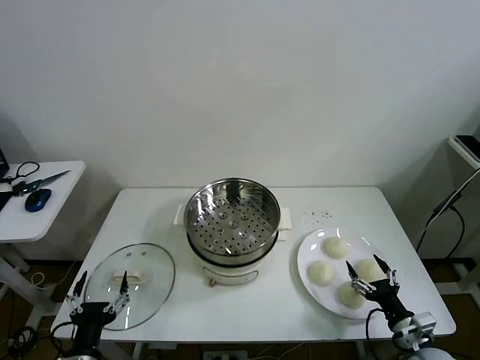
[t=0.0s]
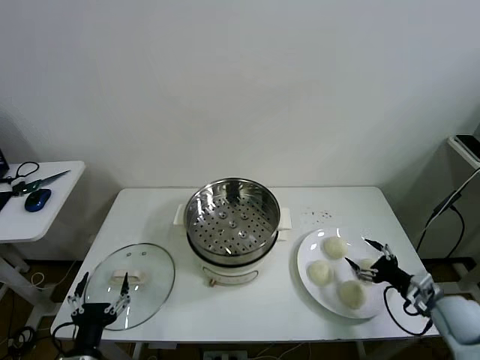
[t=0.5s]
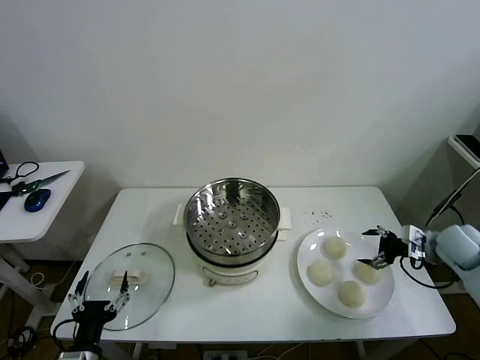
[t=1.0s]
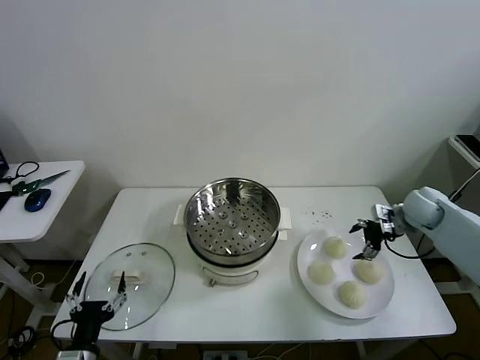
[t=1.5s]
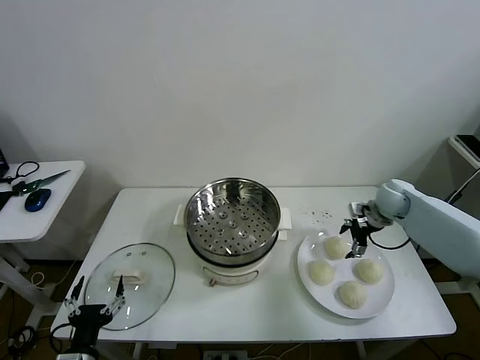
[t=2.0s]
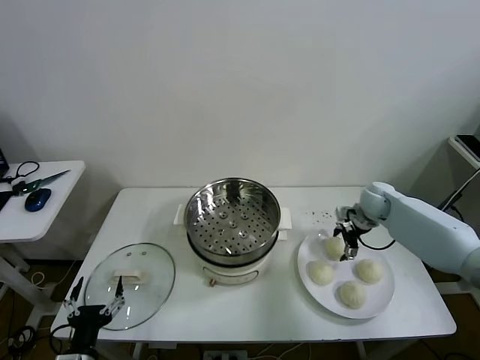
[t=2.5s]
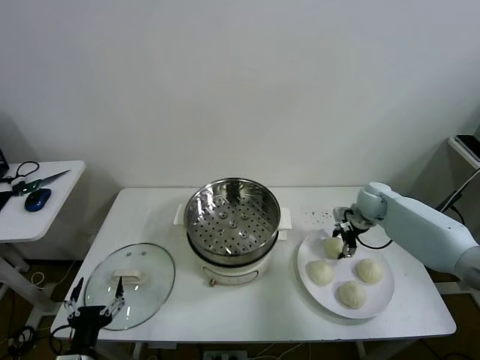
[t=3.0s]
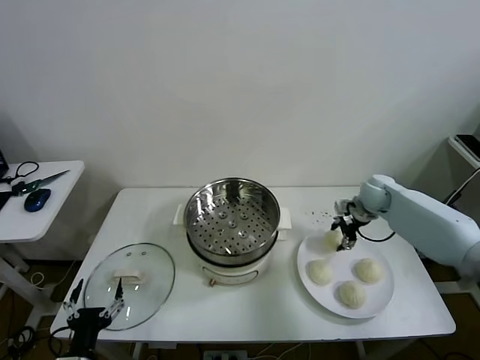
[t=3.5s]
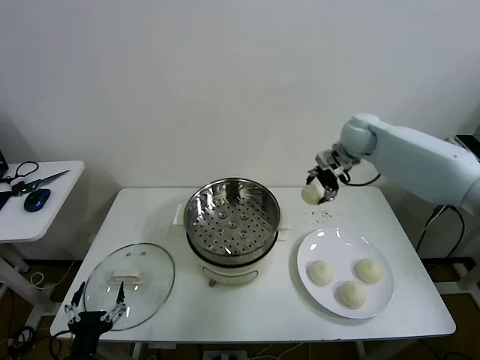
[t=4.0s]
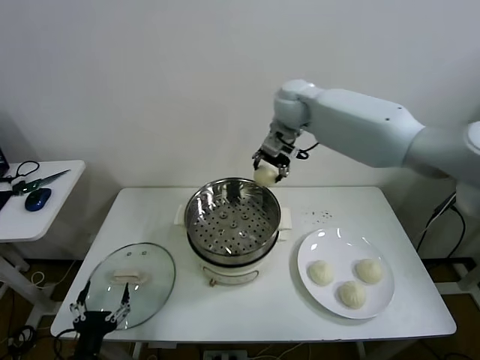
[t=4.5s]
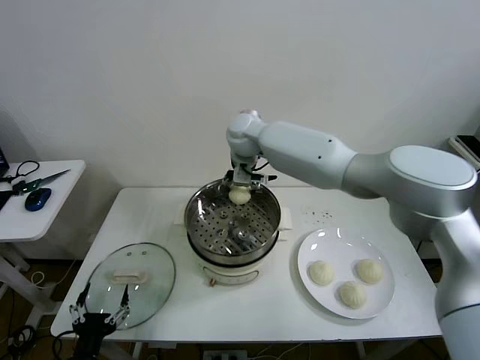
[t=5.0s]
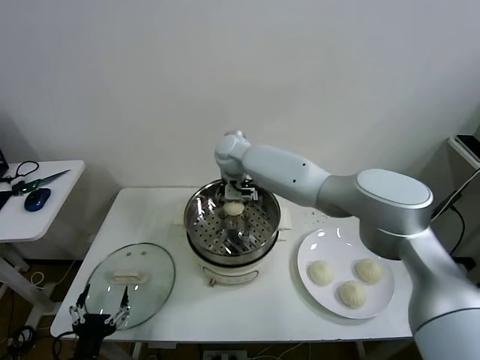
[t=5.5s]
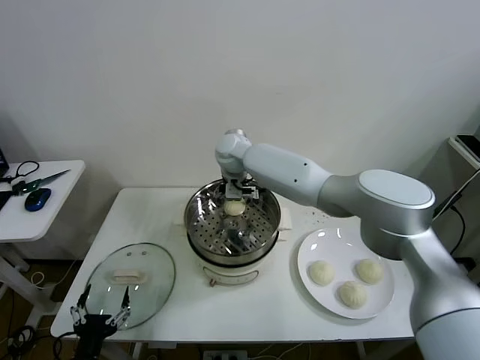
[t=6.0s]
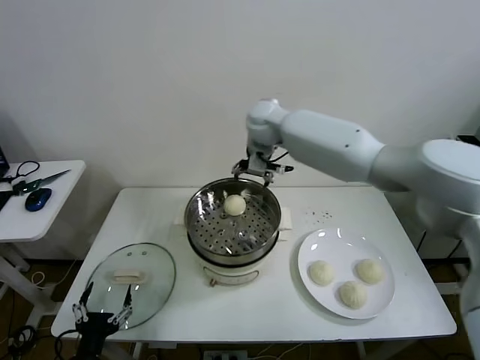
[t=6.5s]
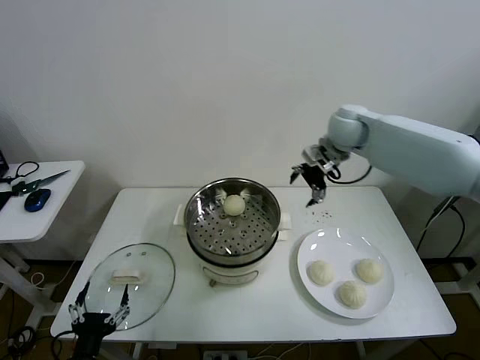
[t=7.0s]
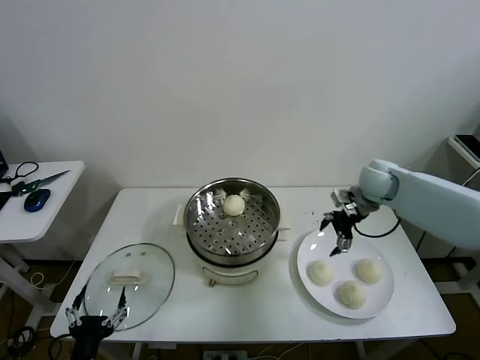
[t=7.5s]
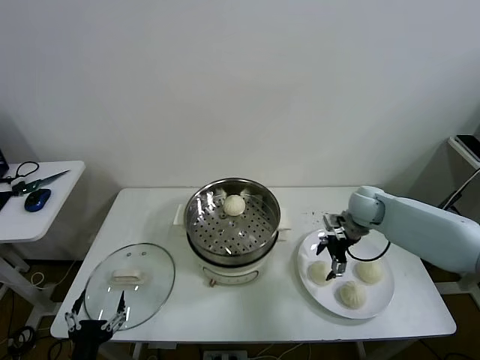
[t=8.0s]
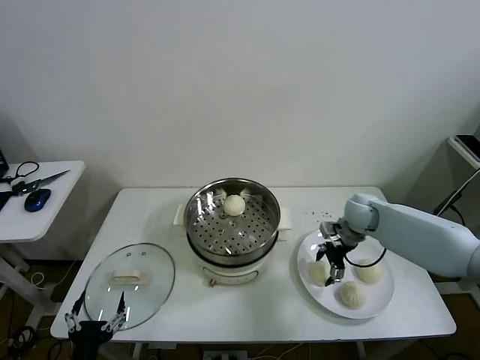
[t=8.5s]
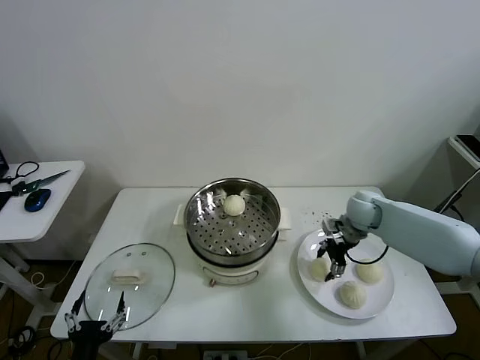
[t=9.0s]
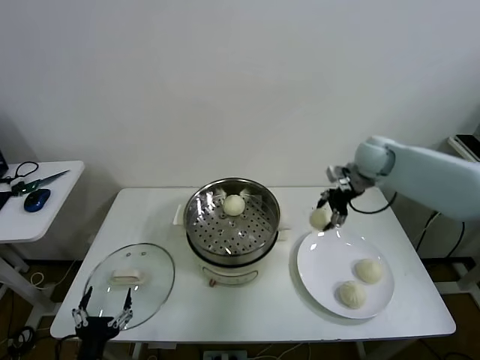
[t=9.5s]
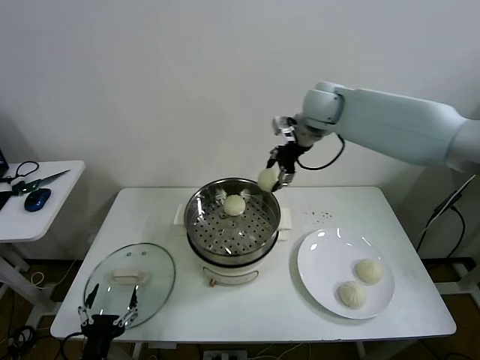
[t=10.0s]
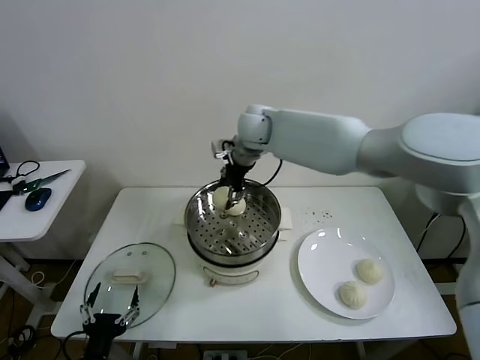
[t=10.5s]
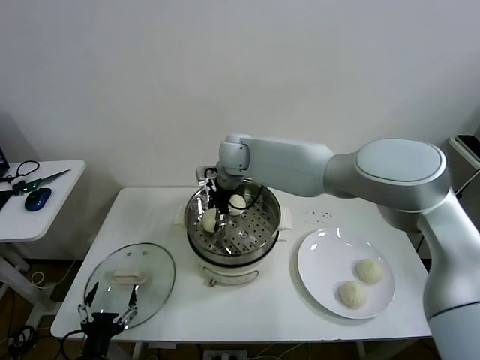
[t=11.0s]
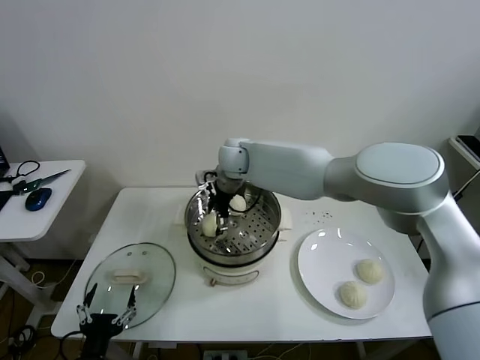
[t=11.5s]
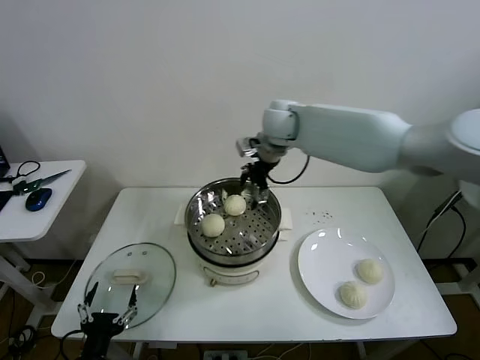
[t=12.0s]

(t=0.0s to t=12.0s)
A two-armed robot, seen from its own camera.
Task of the whole recording: take steamed baozi put them in steamer then cover it.
Step, t=0.0s - t=3.0s: Grasp the baozi in the plate with right gripper.
Step, t=3.5s - t=6.0s: Place the baozi on the steamer with right gripper.
Step, t=6.5s - t=8.5s: Grasp the baozi in the plate with right gripper.
Step, t=9.0s - t=11.5s: Place the baozi on the steamer with right gripper.
t=2.0s - t=4.0s: The right gripper heads upward and to the left, covering about 25 cm, and closes up.
t=4.0s - t=6.0s: The right gripper travels to the left by about 25 cm, and opens its fingers.
t=6.0s - t=8.0s: The right gripper goes approximately 35 cm to the right and downward.
t=8.0s - t=10.0s: The right gripper goes approximately 30 cm upward and to the left, and closes.
t=10.0s - t=12.0s: The right gripper reaches about 15 cm to the left, then returns, and opens up.

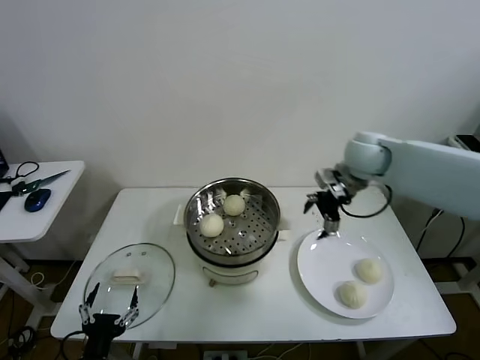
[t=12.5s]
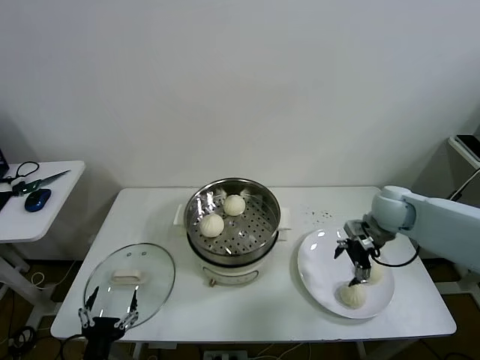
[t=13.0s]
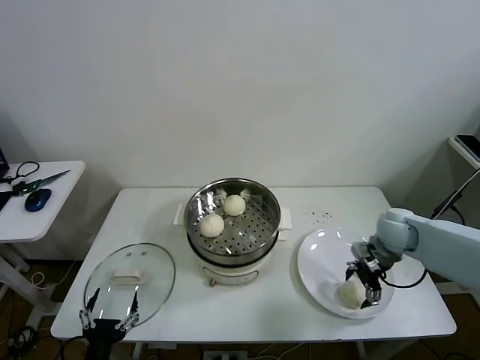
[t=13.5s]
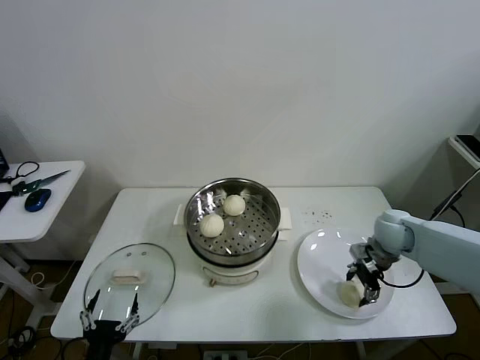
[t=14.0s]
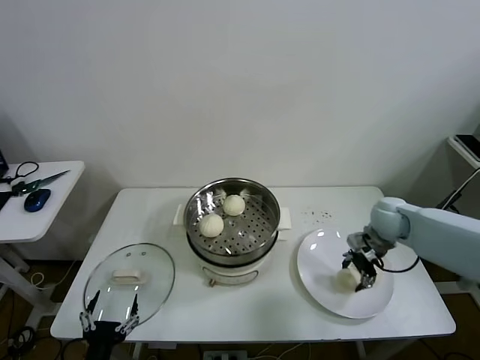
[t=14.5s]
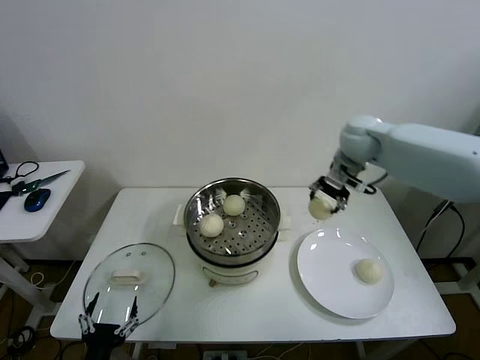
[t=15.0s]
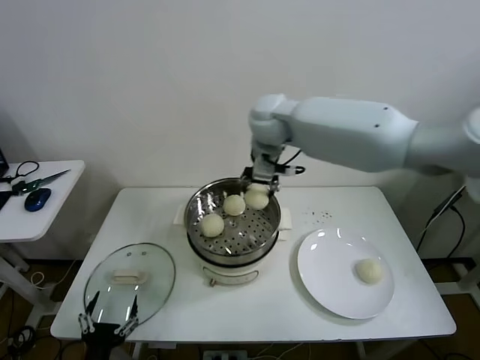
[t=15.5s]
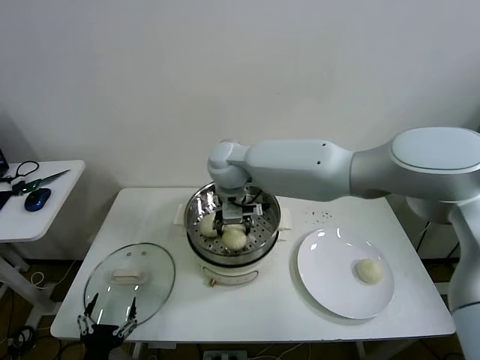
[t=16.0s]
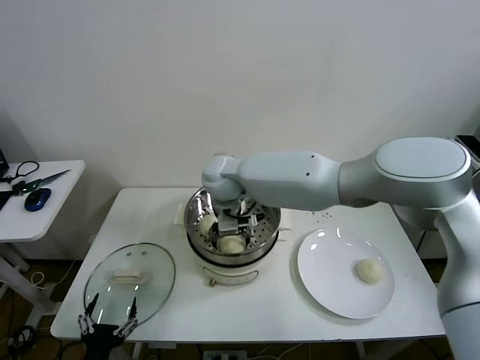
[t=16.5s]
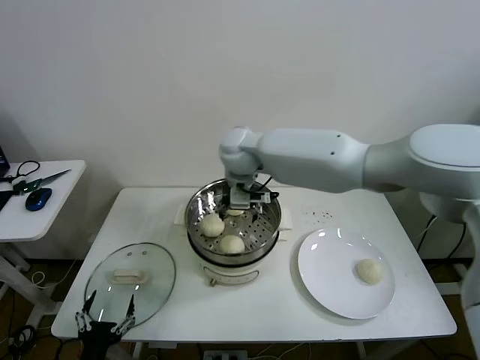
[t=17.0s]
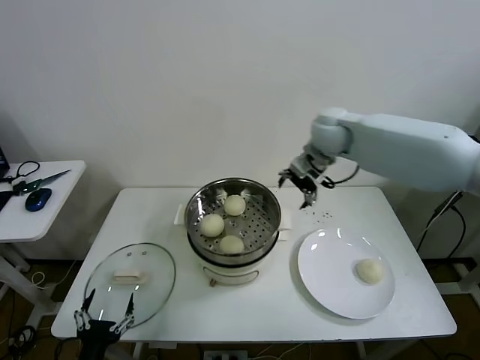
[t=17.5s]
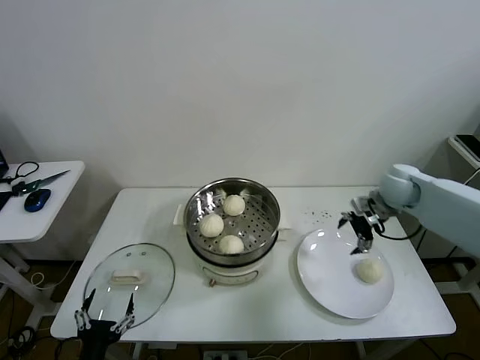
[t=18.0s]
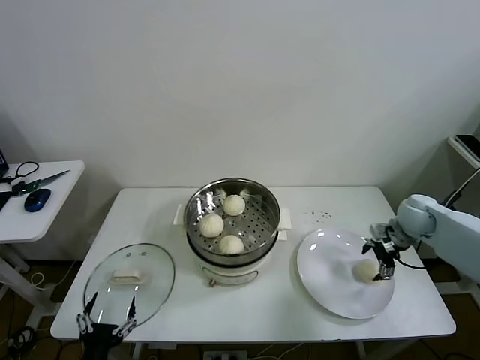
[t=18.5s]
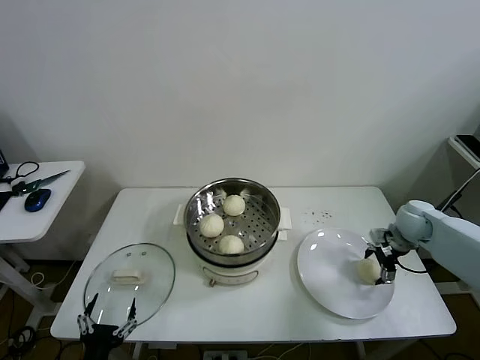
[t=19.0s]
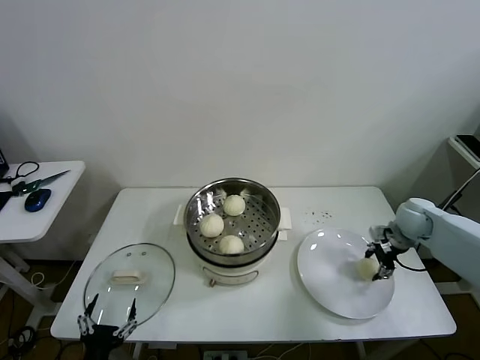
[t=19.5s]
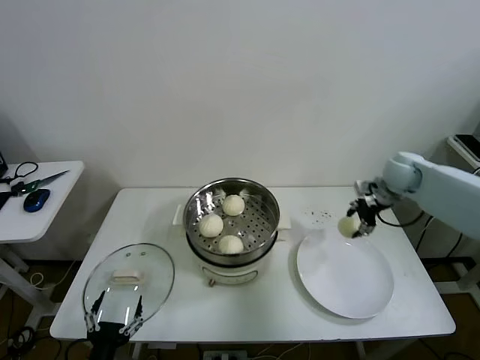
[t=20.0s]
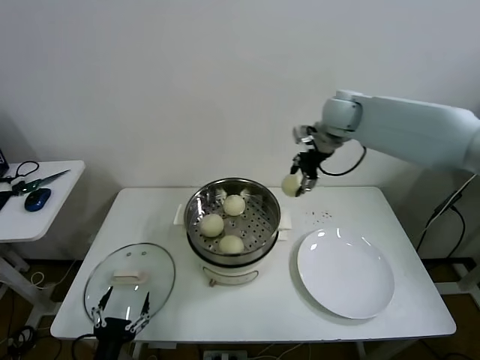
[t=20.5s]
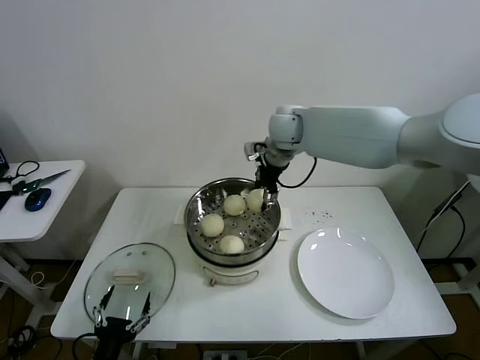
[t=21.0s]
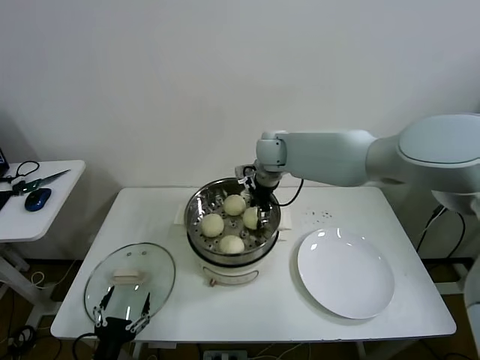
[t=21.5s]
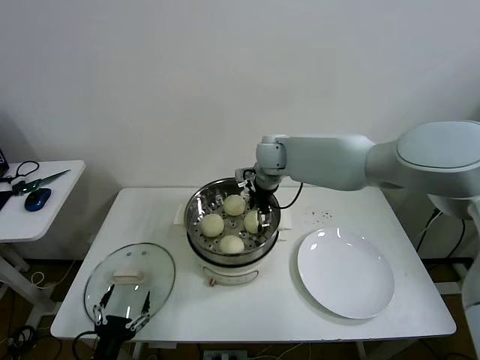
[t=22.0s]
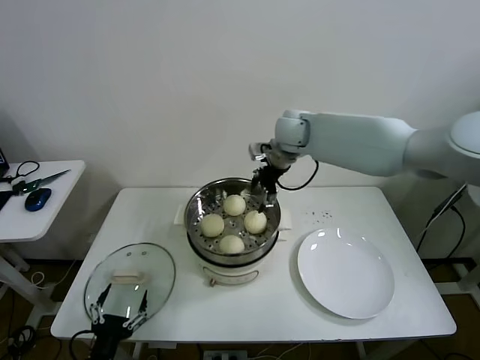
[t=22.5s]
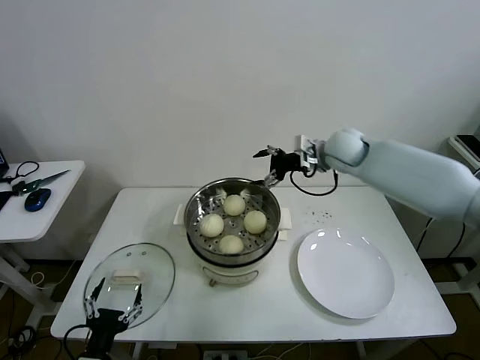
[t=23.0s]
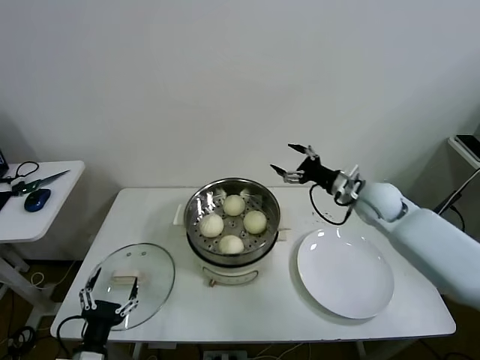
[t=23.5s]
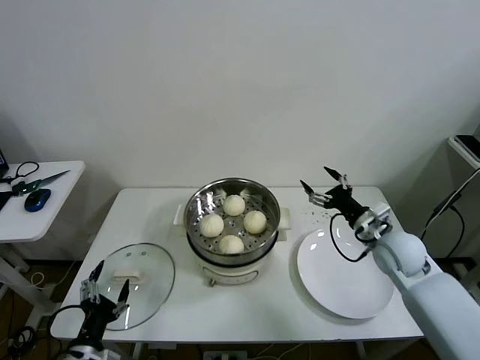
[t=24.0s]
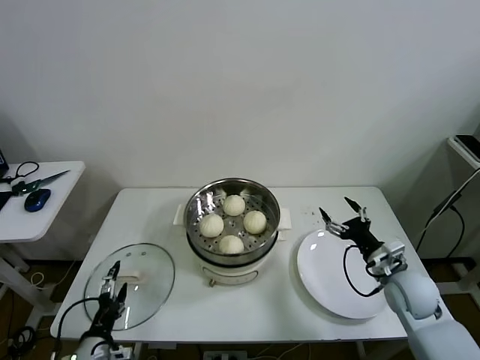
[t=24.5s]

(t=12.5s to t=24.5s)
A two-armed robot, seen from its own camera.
Task of the whole recording: take steamed baozi put them in steamer then cover it.
Step, t=12.5s - t=14.0s: Grasp the baozi in the plate with right gripper.
Step, t=14.5s - t=16.5s: Place the baozi on the steamer with right gripper.
Step, t=17.0s - t=19.0s: Grasp the baozi in the plate with right gripper.
Step, t=19.5s - t=22.0s: Place the baozi on the steamer with right gripper.
t=12.5s - t=14.5s: The right gripper moves downward and to the right, some 15 cm, and closes its fingers.
t=14.5s - t=16.5s: The right gripper travels to the left by about 40 cm, and opens.
t=16.5s - t=18.5s: The right gripper travels to the right by about 50 cm.
t=18.5s - t=20.5s: The right gripper travels upward, to the left and forward by some 35 cm, and closes its fingers.
t=20.5s - t=22.5s: The right gripper is displaced to the left by some 10 cm, and opens.
t=22.5s - t=24.5s: The left gripper is displaced forward by some 5 cm; the right gripper is displaced backward, downward and to the right by roughly 40 cm.

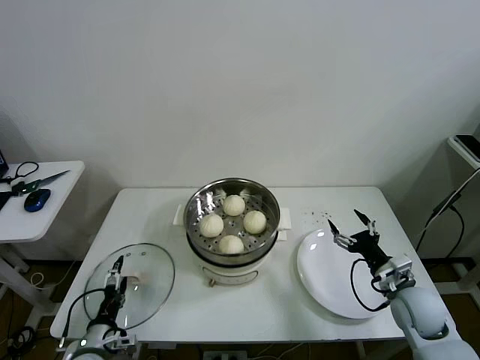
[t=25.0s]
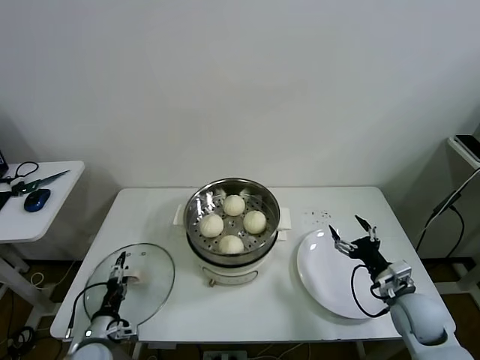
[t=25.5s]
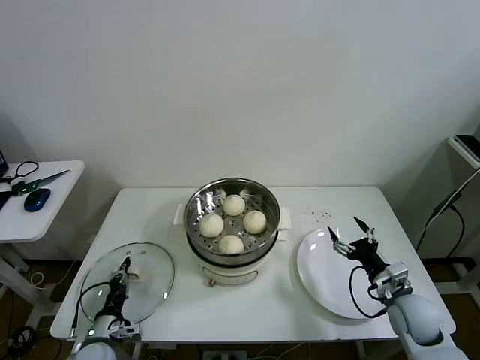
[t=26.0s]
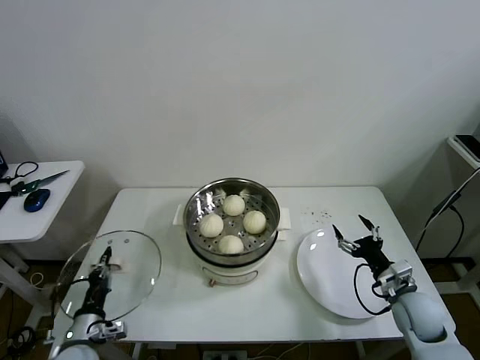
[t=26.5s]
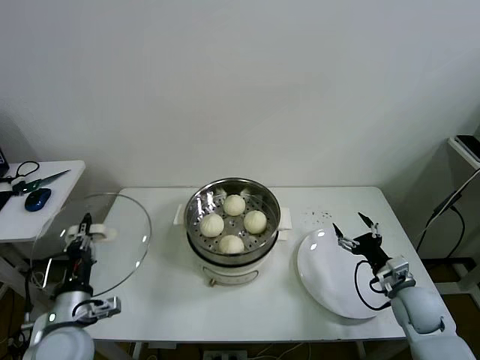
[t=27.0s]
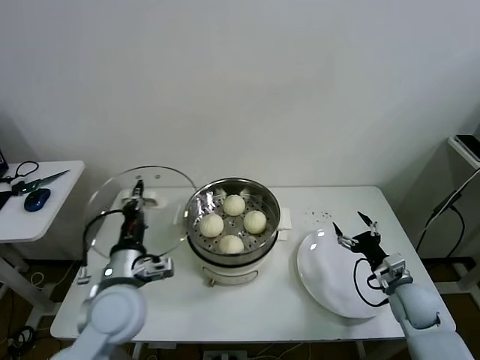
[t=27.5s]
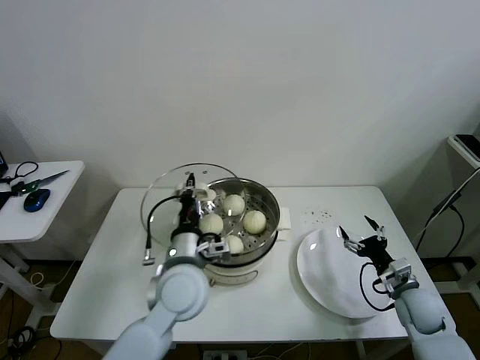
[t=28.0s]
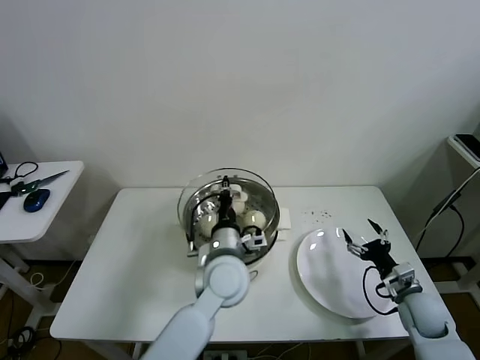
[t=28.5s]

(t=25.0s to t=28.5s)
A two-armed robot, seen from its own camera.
Task of the whole recording: take steamed baozi put them in steamer then cover it.
t=25.0s - t=27.0s: The left gripper heads upward, covering some 10 cm, and closes its fingers.
t=27.0s - t=28.5s: The left gripper goes roughly 30 cm to the right and forward.
